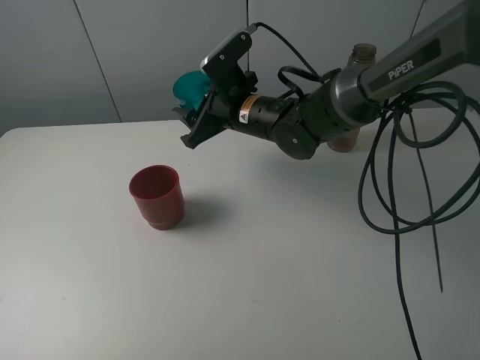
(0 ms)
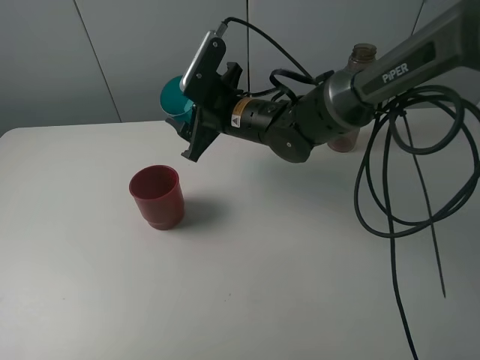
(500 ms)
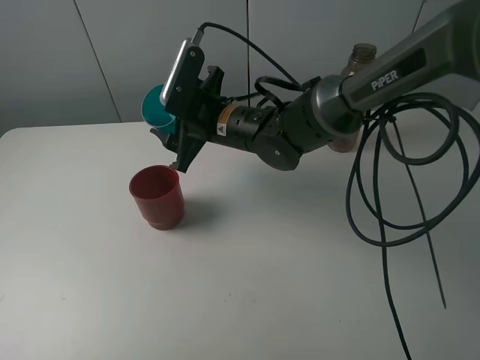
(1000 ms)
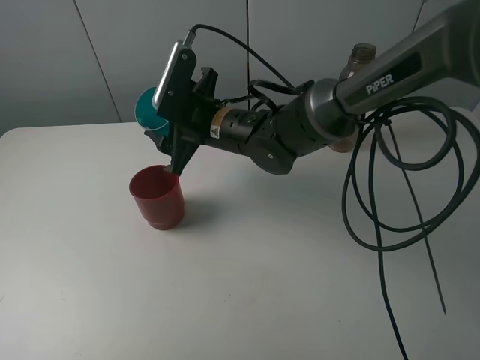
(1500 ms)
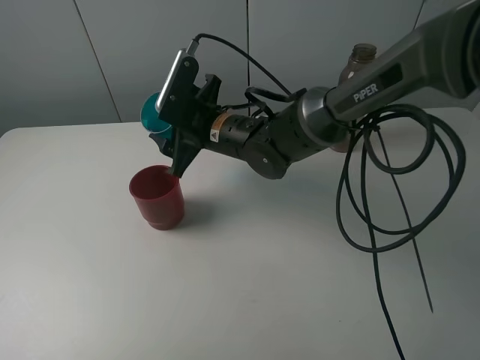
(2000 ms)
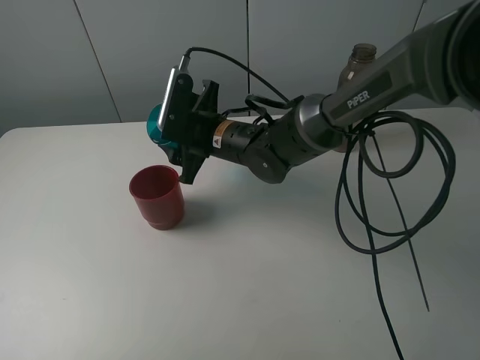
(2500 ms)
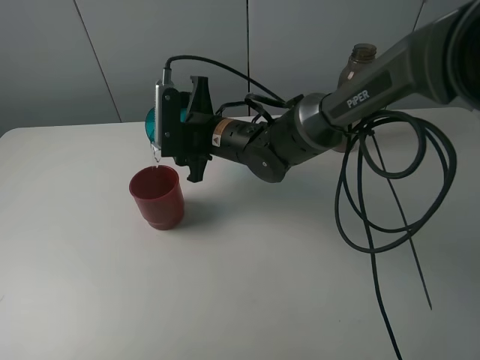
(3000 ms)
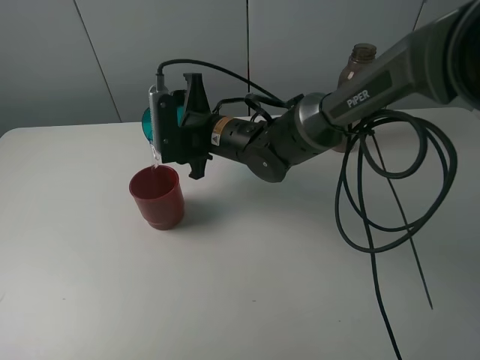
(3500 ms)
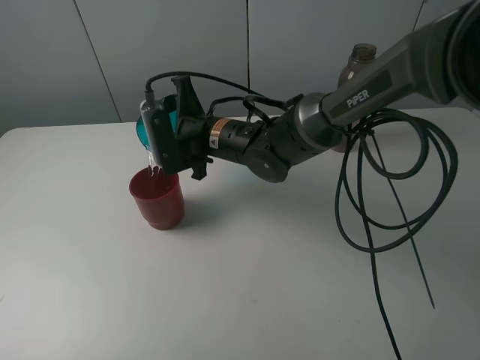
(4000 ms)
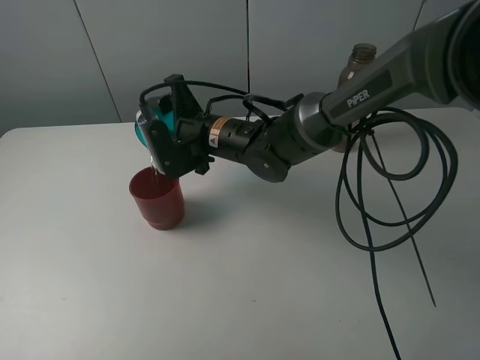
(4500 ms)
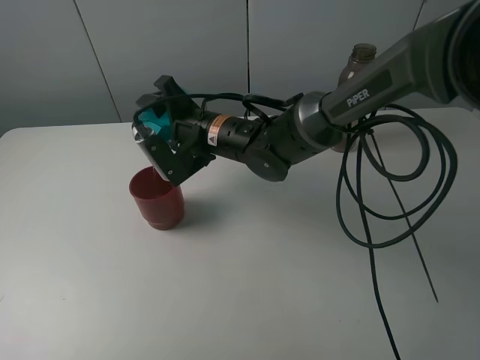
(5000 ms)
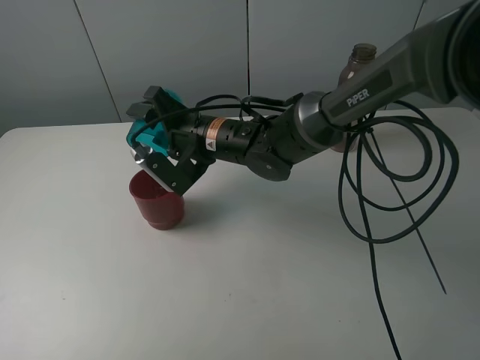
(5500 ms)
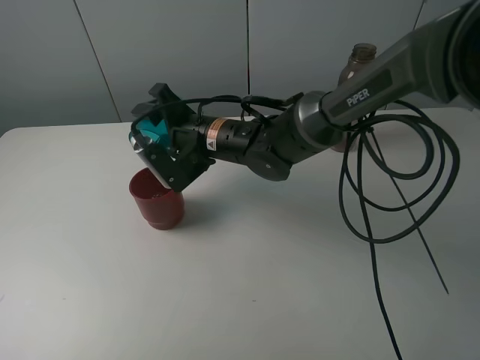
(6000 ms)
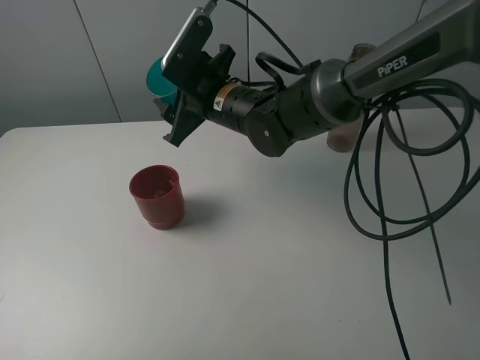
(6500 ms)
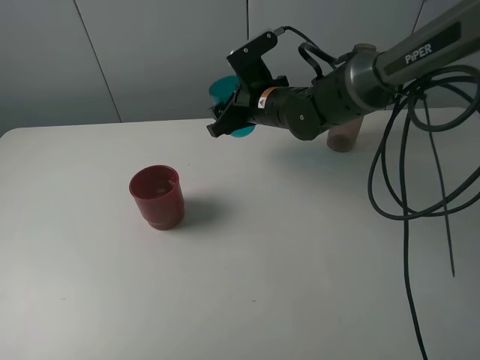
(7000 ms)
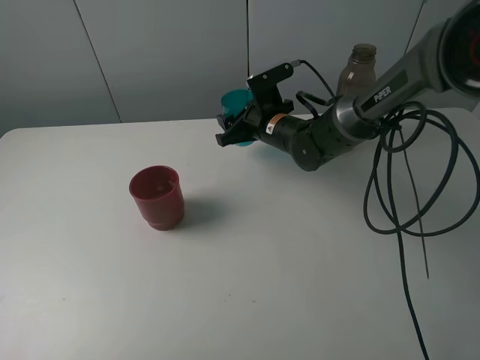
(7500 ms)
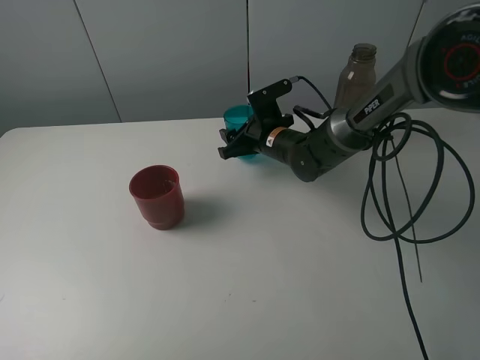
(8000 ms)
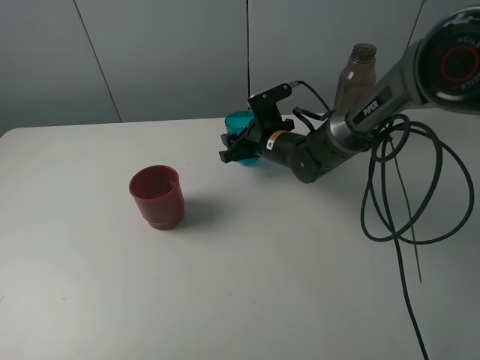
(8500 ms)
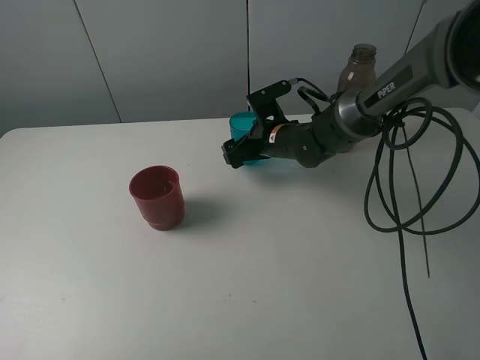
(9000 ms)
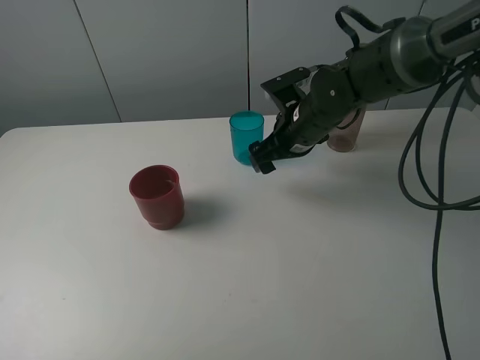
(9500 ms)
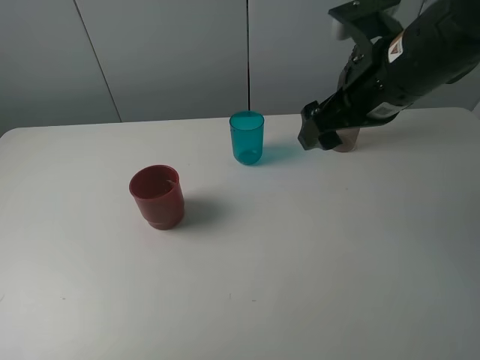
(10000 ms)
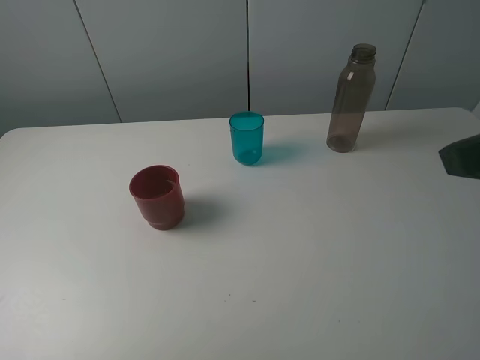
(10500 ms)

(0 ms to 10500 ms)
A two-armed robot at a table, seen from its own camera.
Task of the whole recording: pick up the bottle and pour water into the cup, then pick up the cup containing water and pour it into another cup.
Step, 0 ms - 6000 ms: Pour water from blue cup to red cup with the right gripper.
Step, 6500 ms - 8500 ms: Place the blue cup with the right gripper.
6500 ms - 8500 ms: The right gripper goes roughly 15 cm downward, to the right and forward.
8500 ms - 10500 ms: The right gripper travels backward, upward and to the right by approximately 50 cm, and opens up.

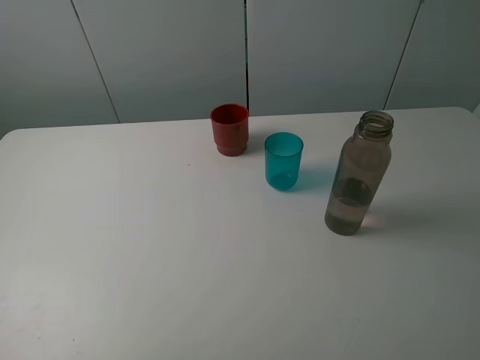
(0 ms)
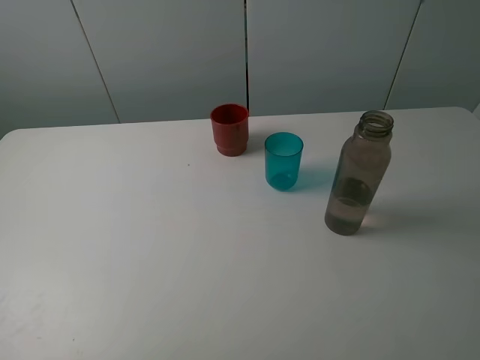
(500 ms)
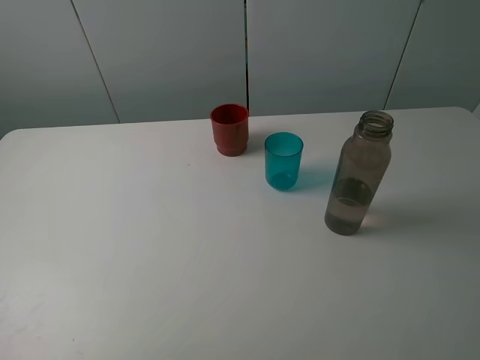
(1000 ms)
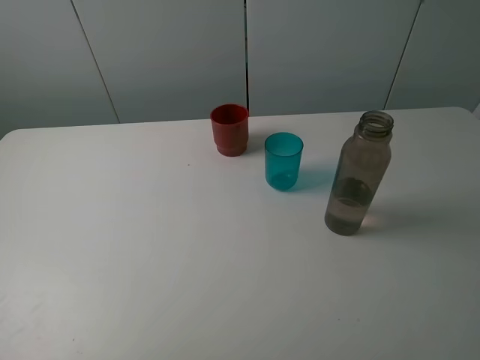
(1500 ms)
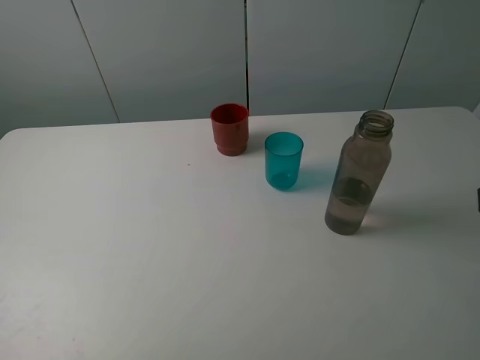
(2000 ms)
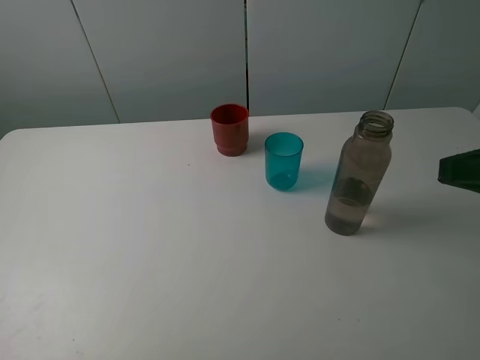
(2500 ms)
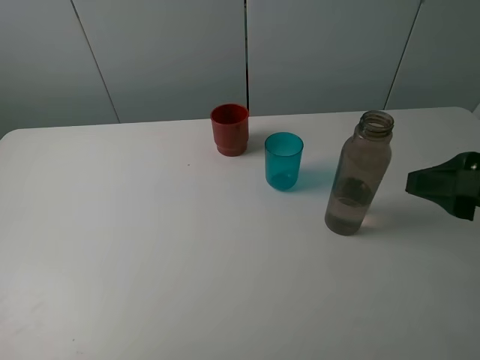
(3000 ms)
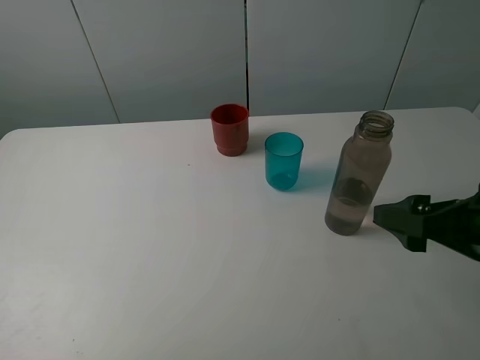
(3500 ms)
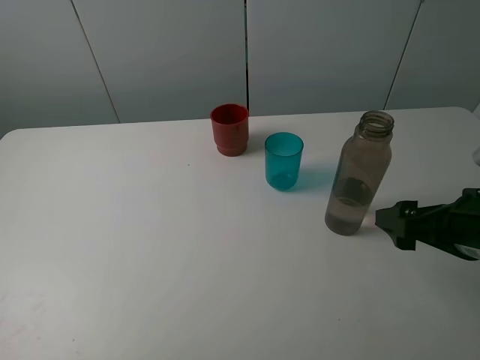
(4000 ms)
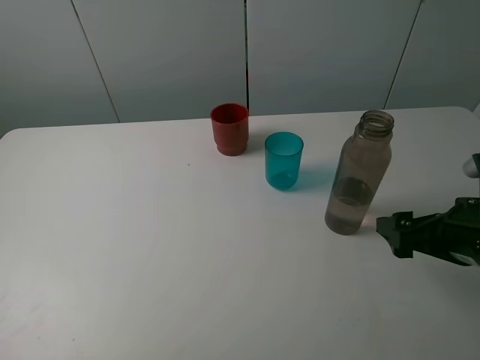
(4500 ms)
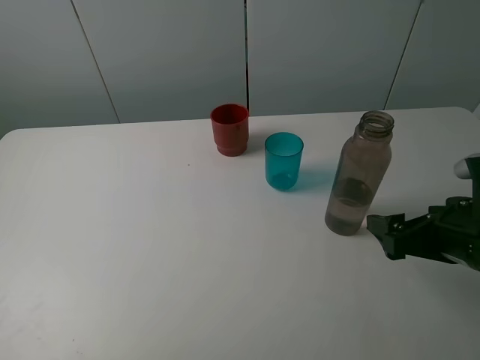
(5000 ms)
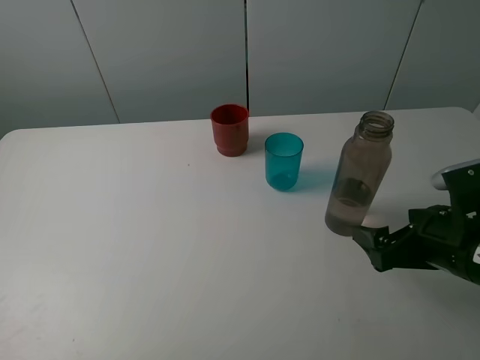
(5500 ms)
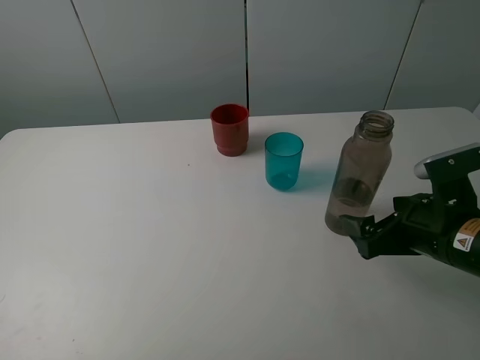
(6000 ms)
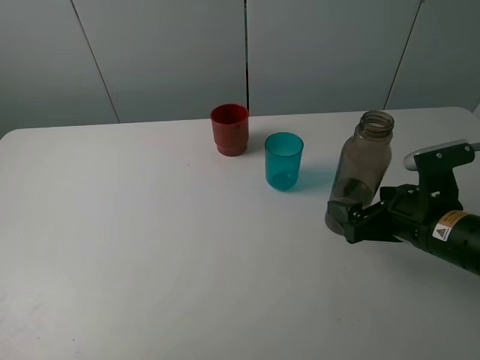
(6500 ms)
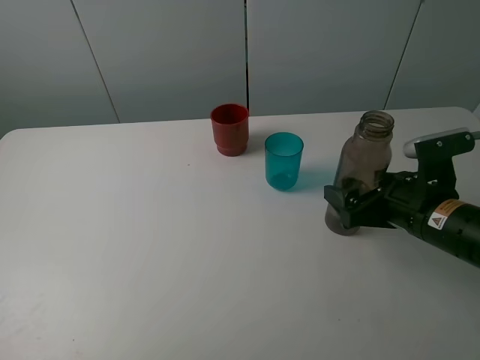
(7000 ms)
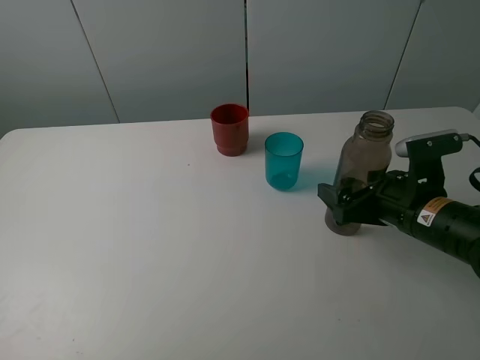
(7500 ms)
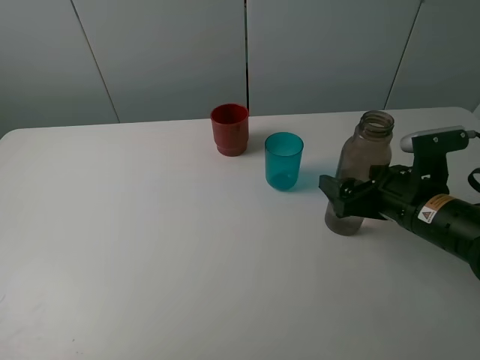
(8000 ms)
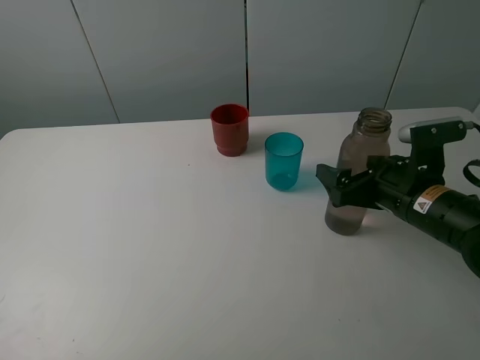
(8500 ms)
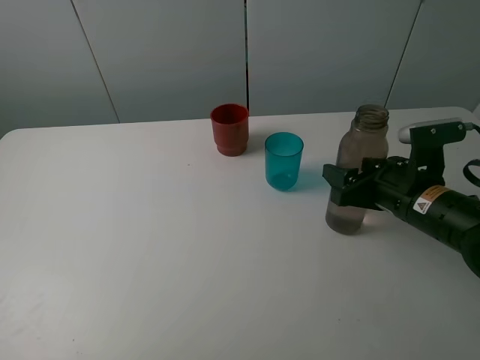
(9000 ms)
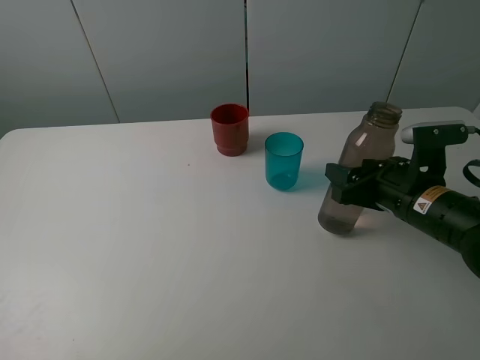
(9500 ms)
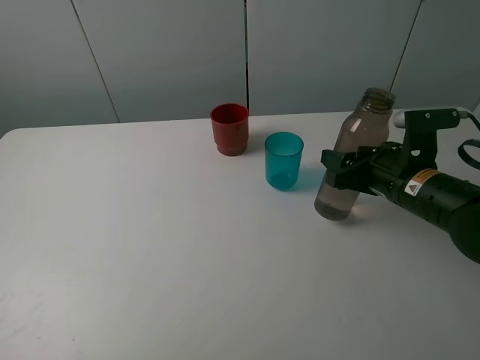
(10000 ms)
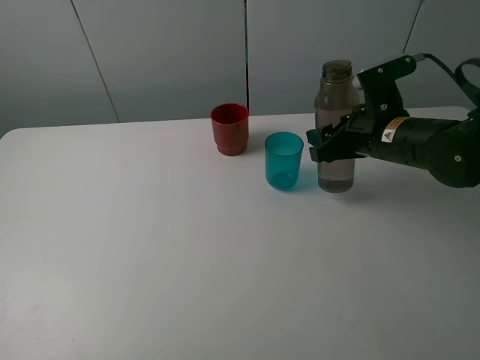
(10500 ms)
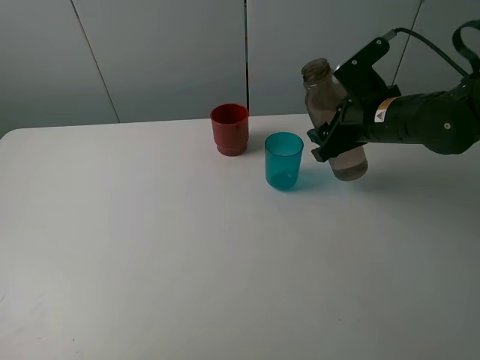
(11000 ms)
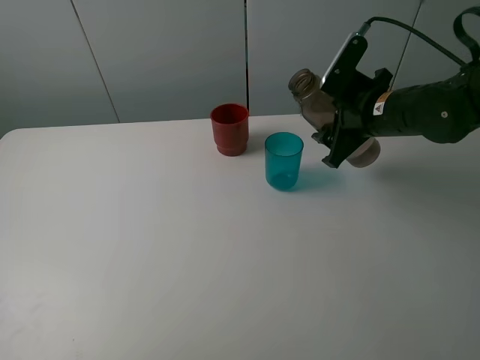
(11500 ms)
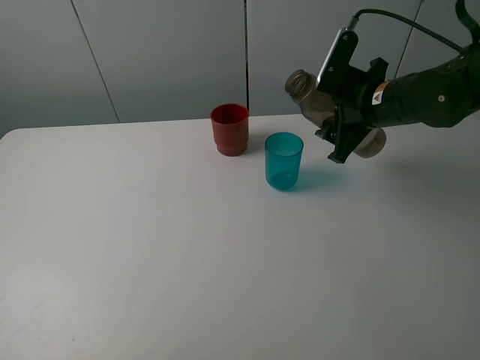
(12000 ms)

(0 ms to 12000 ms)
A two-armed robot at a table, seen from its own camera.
Task of the whole recording: pick up the bottle and pour water into the cup, then pick up the cup containing water and pour it into another cup.
Step, 0 ms - 9000 ms: Grasp the brown bottle with the right gripper.
2000 ms - 4000 ms: The right gripper moves downward and forward, some 15 cm.
4000 ms - 6000 ms: The right gripper moves some 5 cm.
6000 ms - 8000 ms: The grippers make only small movements.
8000 ms - 10000 ms: The right gripper closes its fingers.
10000 ms - 12000 ms: The right gripper goes some 10 cm forward and upward.

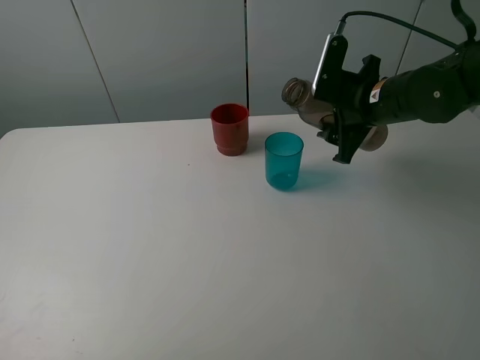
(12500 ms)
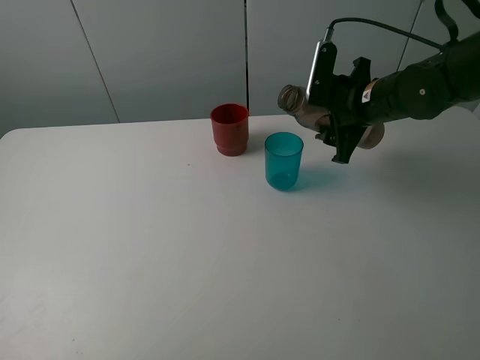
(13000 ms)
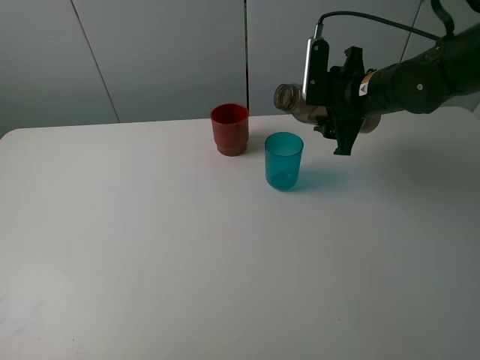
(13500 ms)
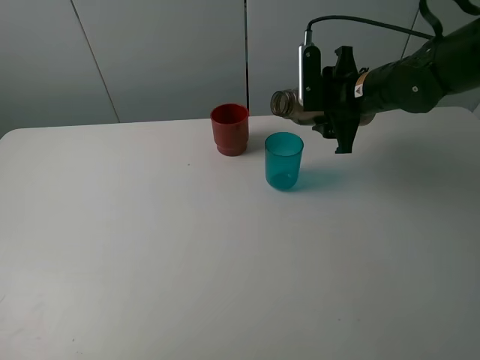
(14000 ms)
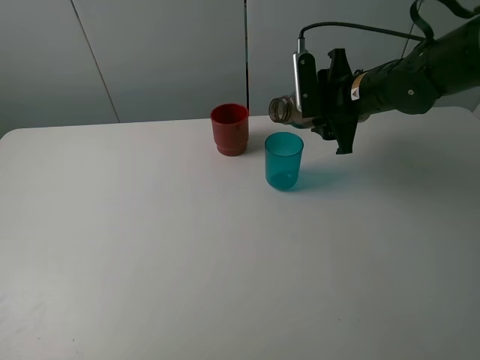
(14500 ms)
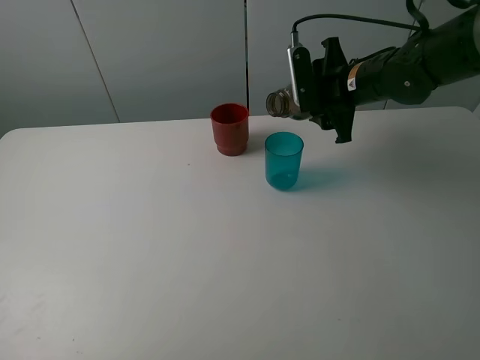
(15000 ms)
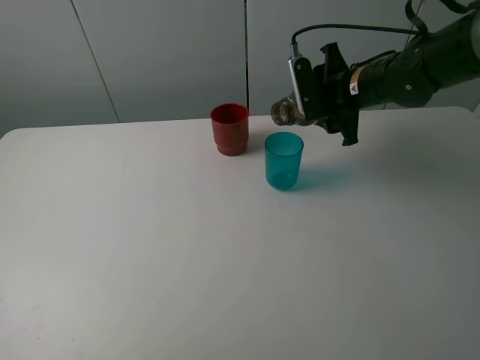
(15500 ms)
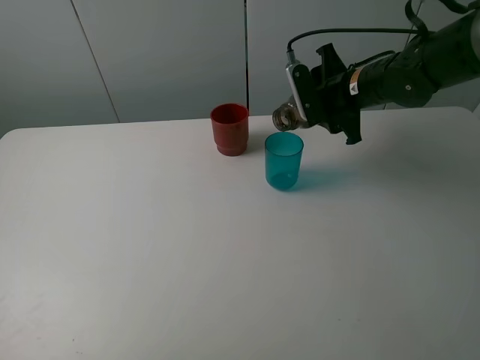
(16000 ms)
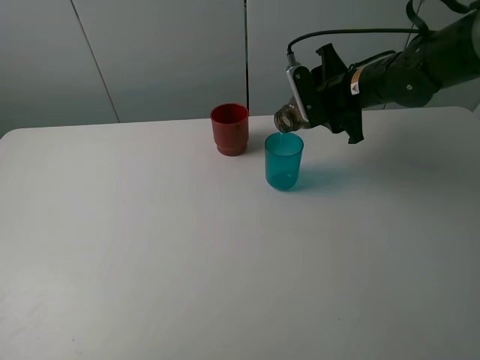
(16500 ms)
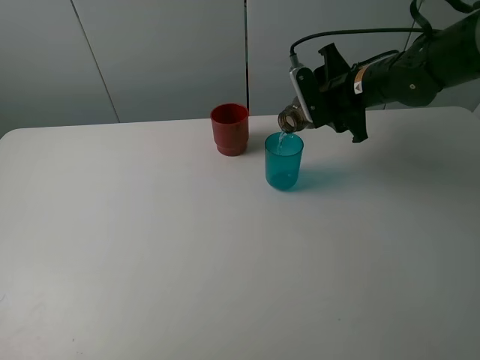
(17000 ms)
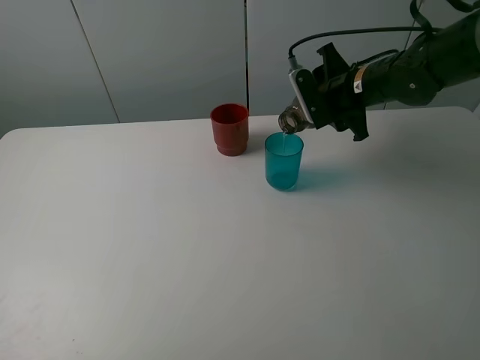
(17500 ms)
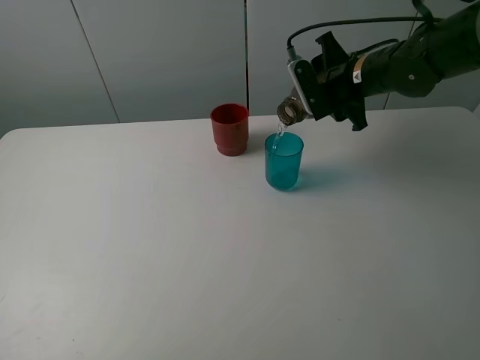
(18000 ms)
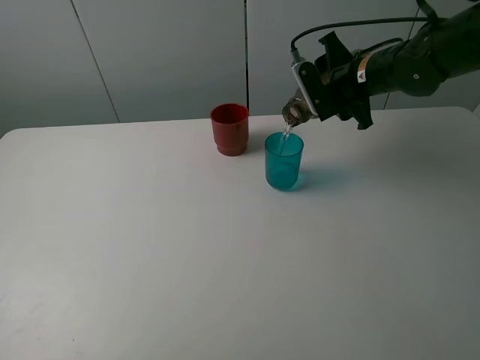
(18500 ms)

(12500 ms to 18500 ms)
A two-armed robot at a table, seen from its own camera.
Task of the whole recording: pick up the bottle and pour water into the cup, then pick up the cup containing water and pour it into another cup.
14500 ms - 16500 ms: The grippers move only a little.
16500 ms - 18500 ms: The grippers make only small movements.
